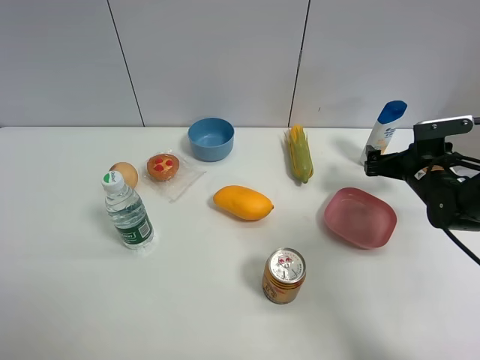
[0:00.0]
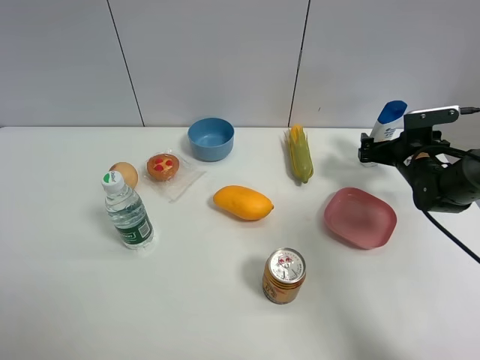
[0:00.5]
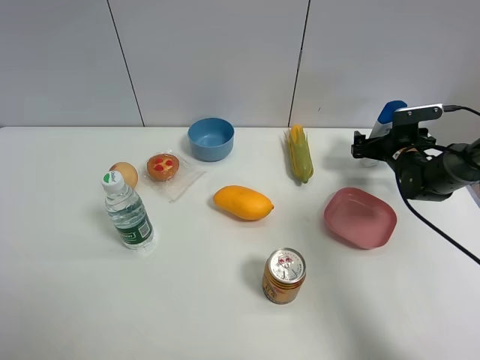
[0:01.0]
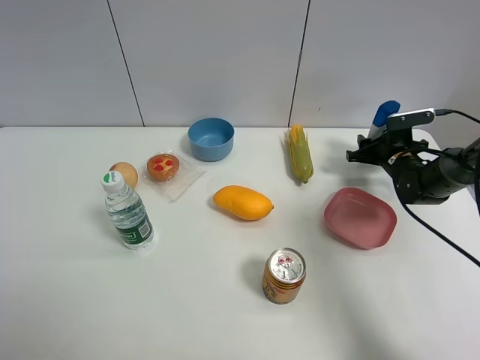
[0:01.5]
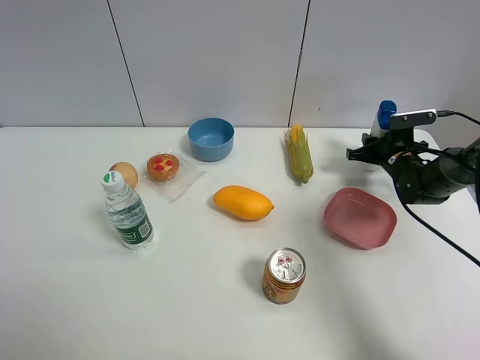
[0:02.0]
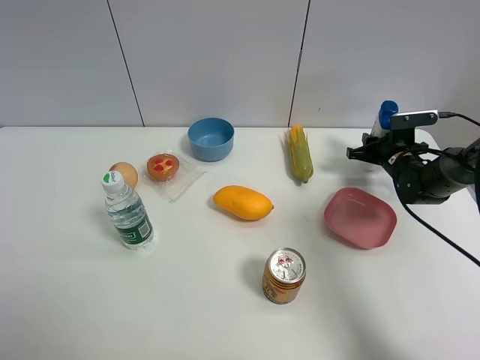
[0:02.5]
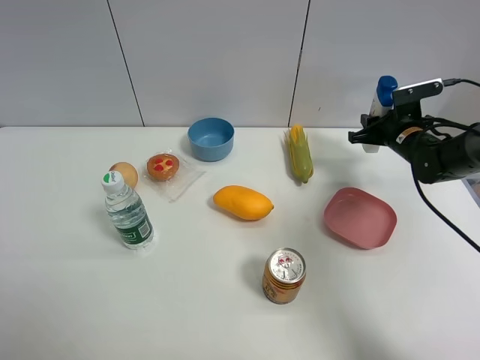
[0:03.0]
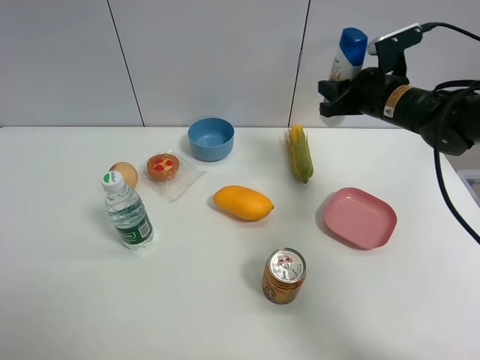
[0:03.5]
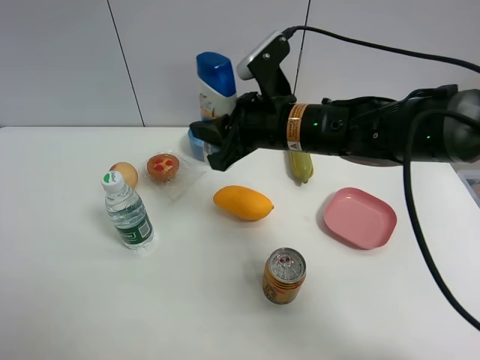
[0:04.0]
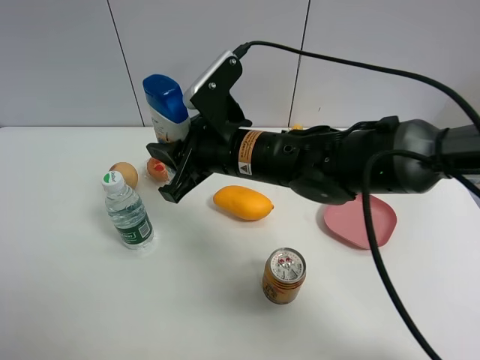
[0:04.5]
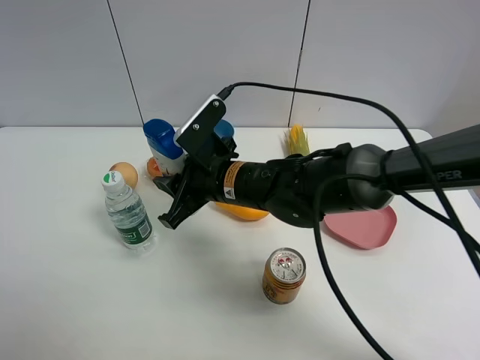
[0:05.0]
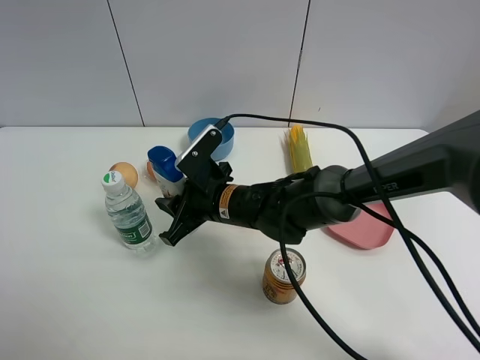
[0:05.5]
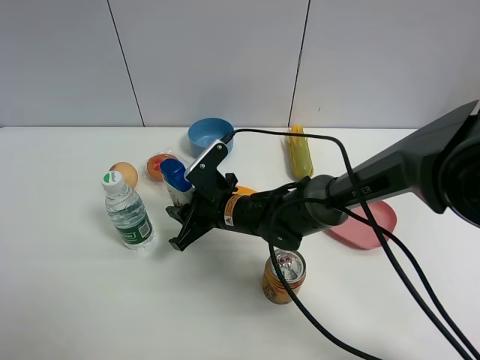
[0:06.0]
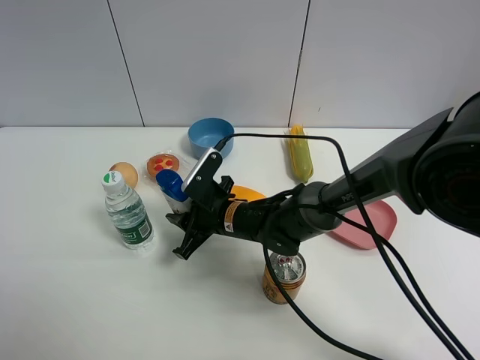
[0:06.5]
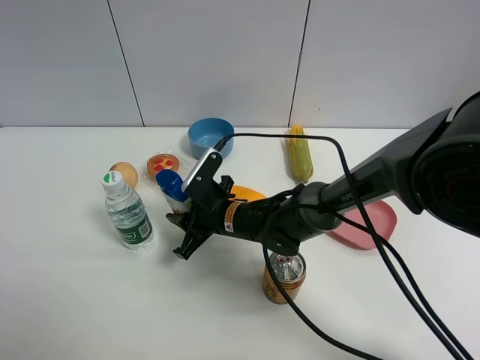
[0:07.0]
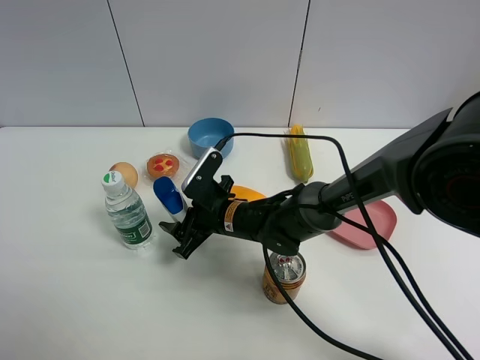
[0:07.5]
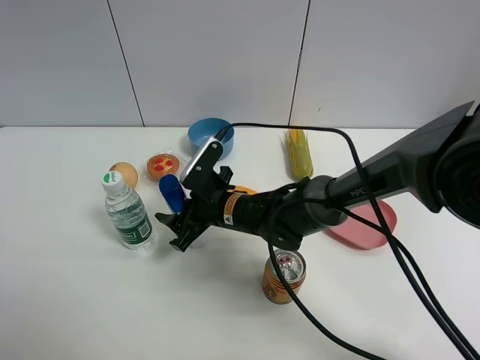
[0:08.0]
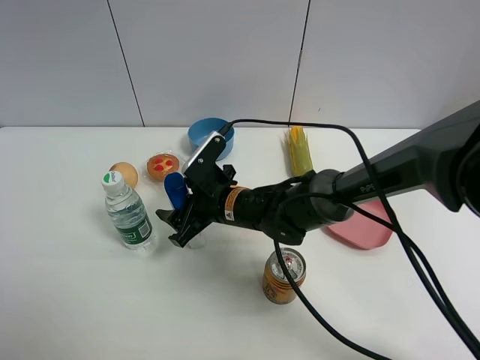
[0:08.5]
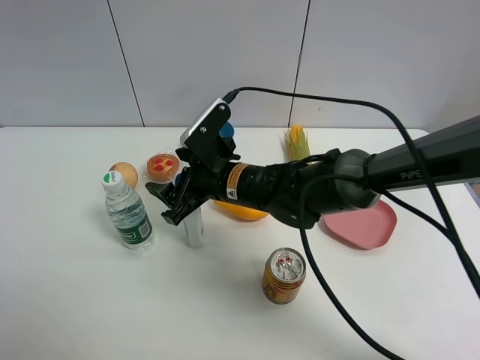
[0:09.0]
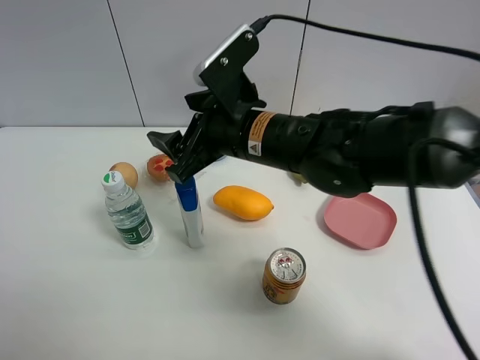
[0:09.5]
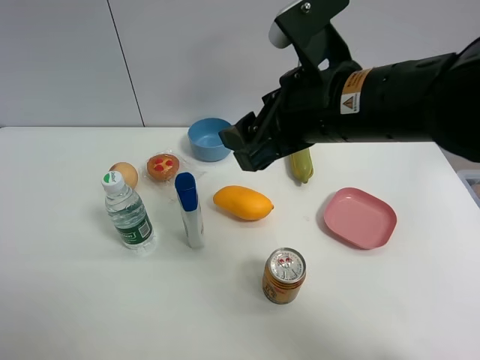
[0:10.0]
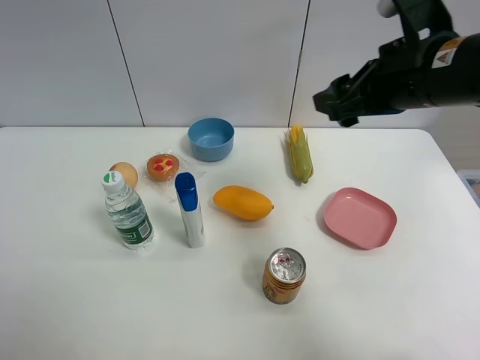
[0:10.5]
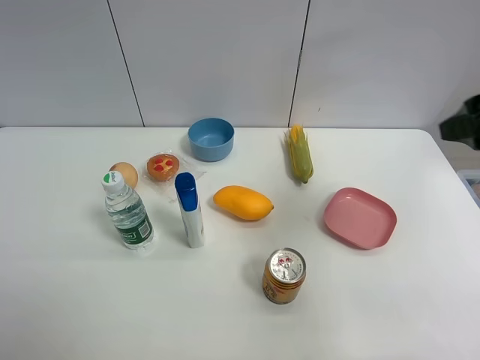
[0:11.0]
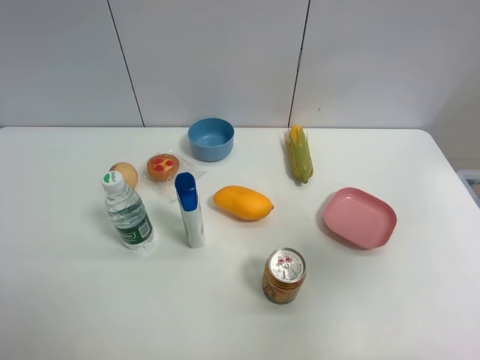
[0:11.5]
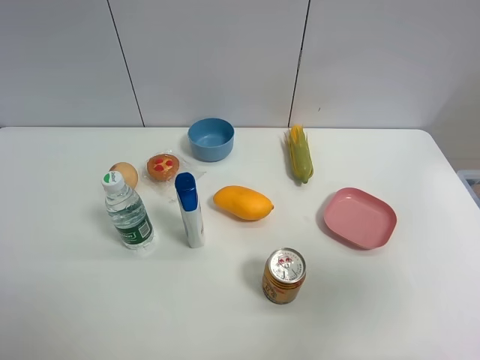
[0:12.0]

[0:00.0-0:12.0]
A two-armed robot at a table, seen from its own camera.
Task of the whole recording: the gripper move the object.
Step, 0:02.0 to 0:08.5: Place the shampoo on the table with the right gripper.
0:00.0 to 0:02.0: The right gripper heads forward, covering some 10 cm, and closes up.
0:02.0 to 0:04.0: The right gripper shifts approximately 35 cm to the left, upward and backward.
0:04.0 to 0:06.0: The right gripper moves downward and to the left, approximately 15 cm.
0:06.0 to 0:08.0: The right gripper opens up.
0:08.0 to 0:10.0: The right gripper travels upward and to the right by approximately 25 cm.
0:10.0 to 0:12.0: The right gripper heads to the right and backward, covering some 30 cm, and opens its fingers.

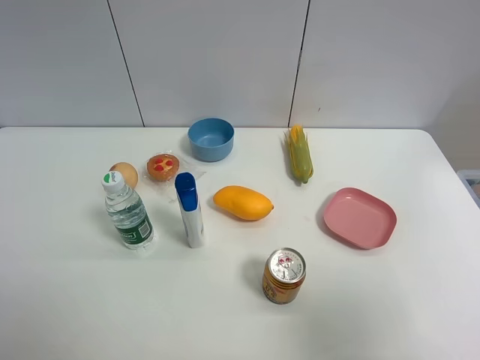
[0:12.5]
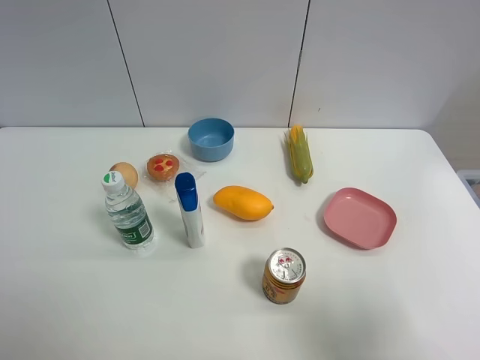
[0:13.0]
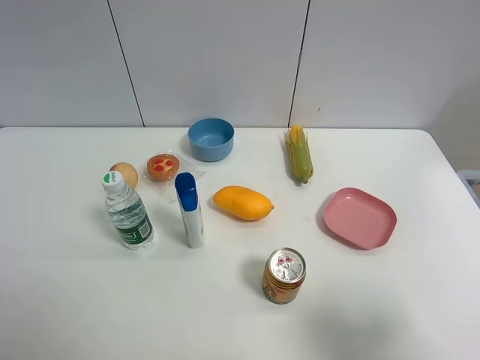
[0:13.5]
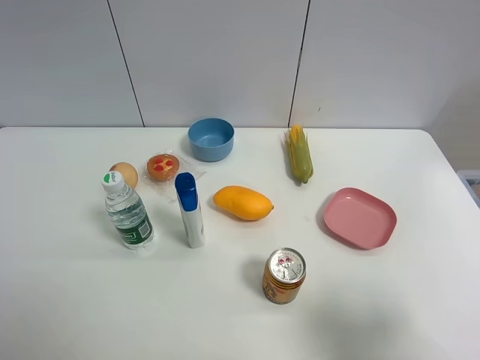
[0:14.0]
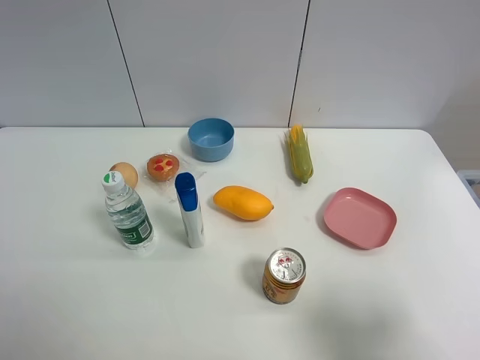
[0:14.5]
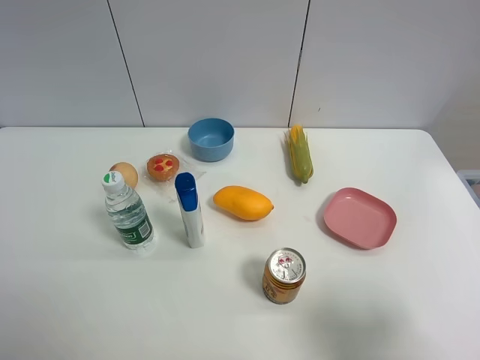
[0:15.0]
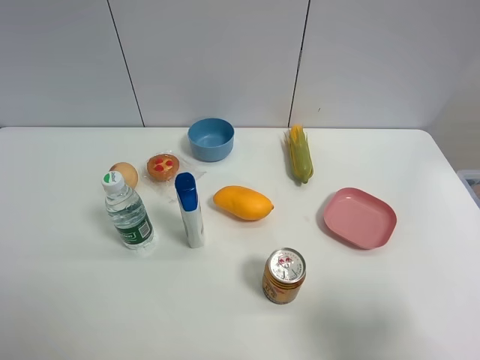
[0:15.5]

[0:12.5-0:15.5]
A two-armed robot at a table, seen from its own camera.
Task of the whole recording: the gripper move the object.
0:14.0 to 0:15.5: Neither gripper changes place.

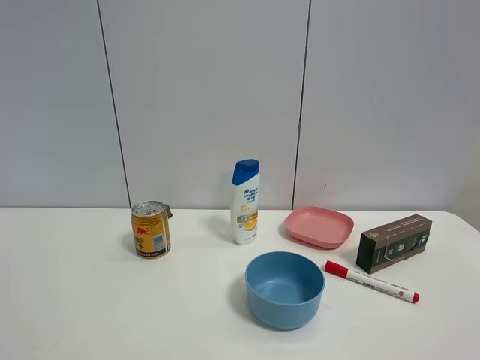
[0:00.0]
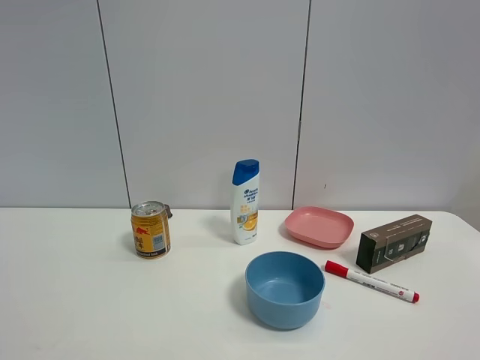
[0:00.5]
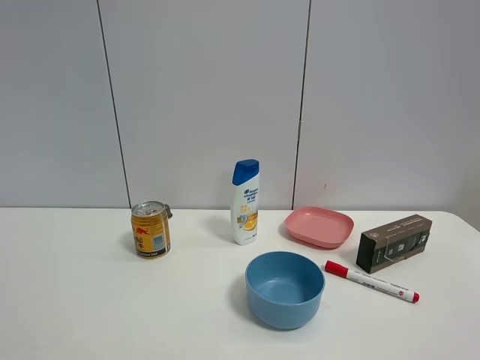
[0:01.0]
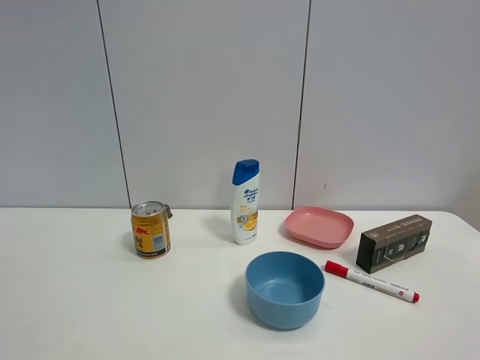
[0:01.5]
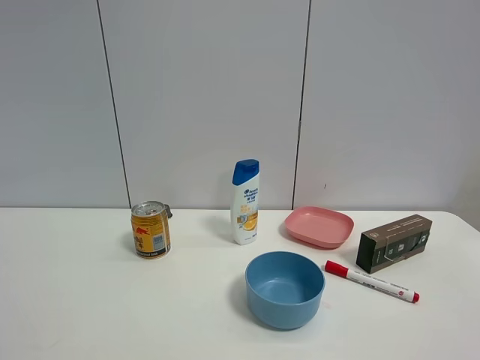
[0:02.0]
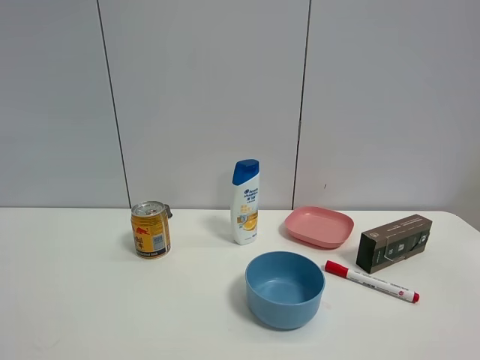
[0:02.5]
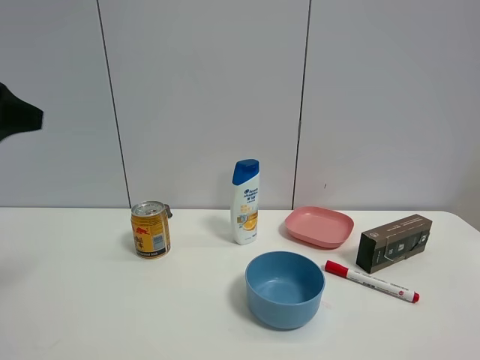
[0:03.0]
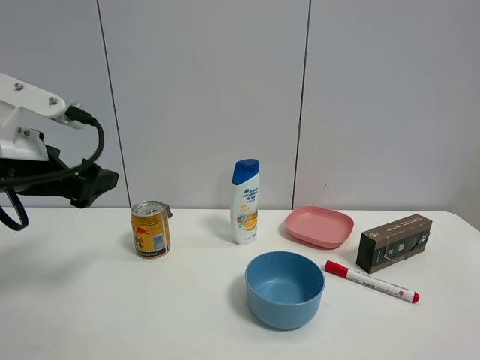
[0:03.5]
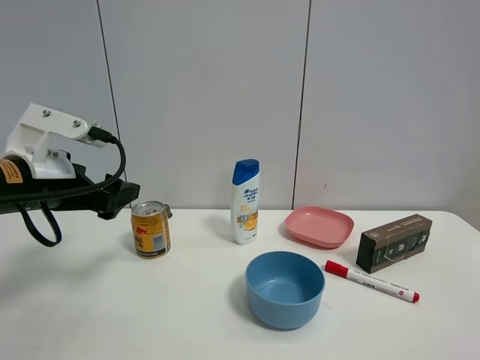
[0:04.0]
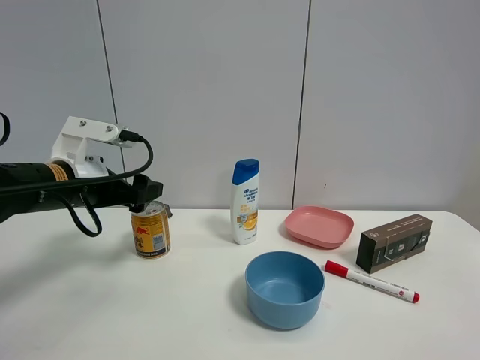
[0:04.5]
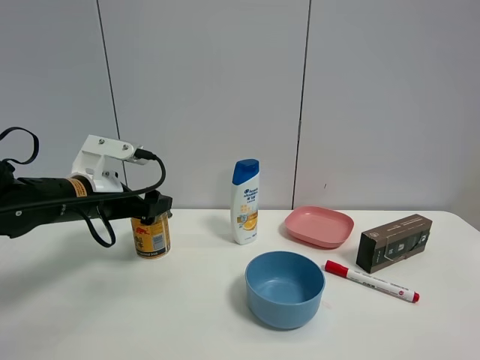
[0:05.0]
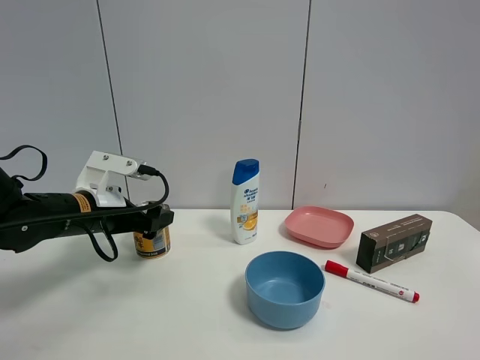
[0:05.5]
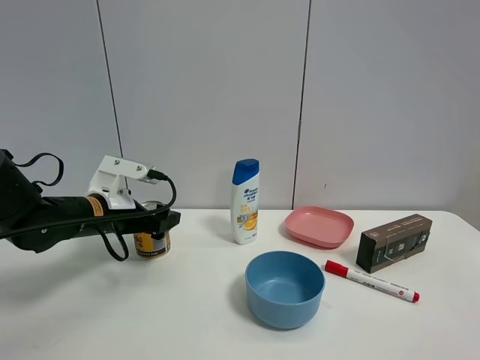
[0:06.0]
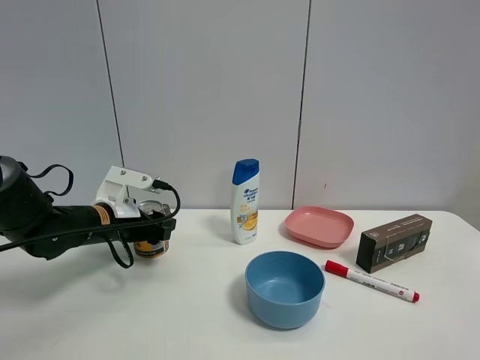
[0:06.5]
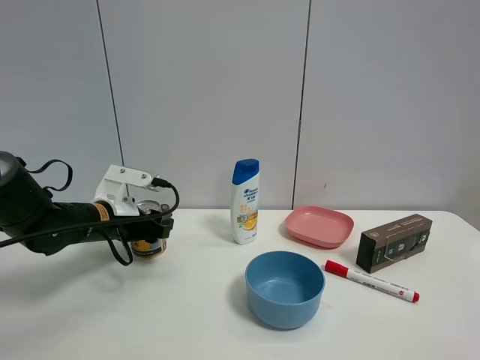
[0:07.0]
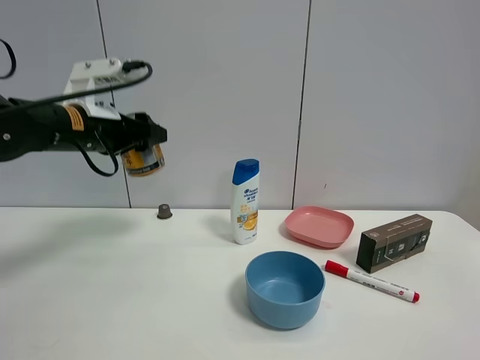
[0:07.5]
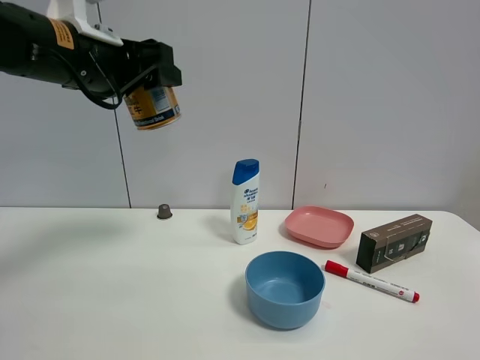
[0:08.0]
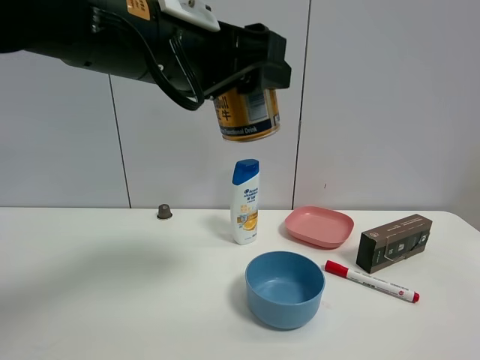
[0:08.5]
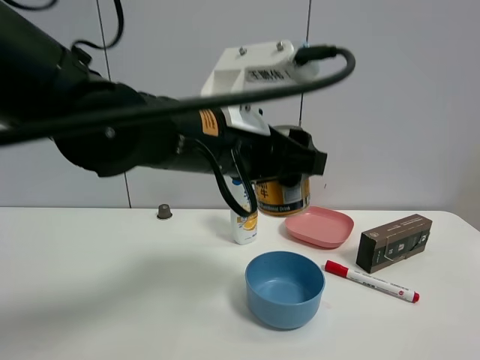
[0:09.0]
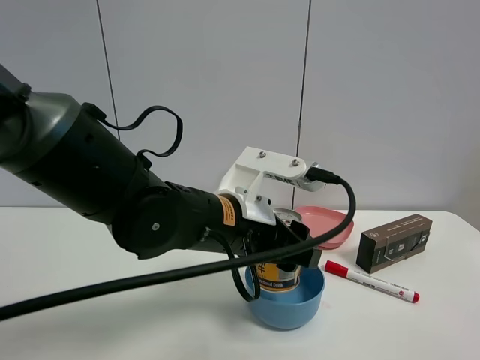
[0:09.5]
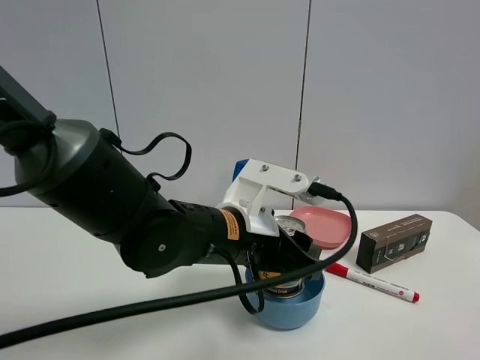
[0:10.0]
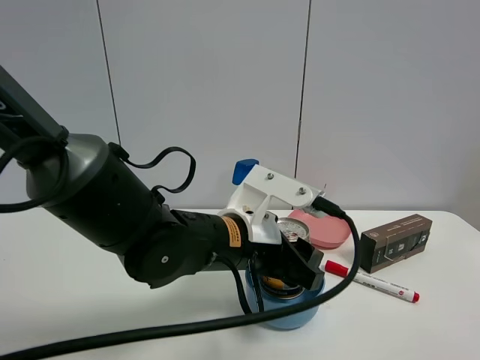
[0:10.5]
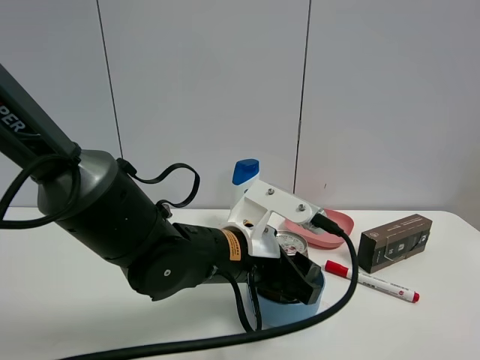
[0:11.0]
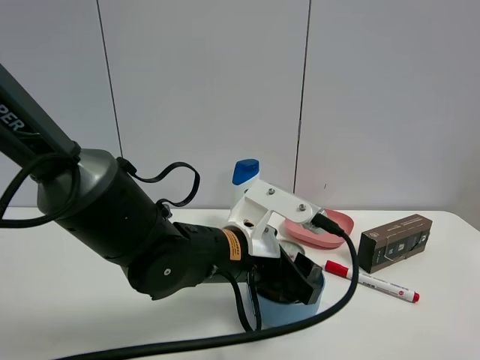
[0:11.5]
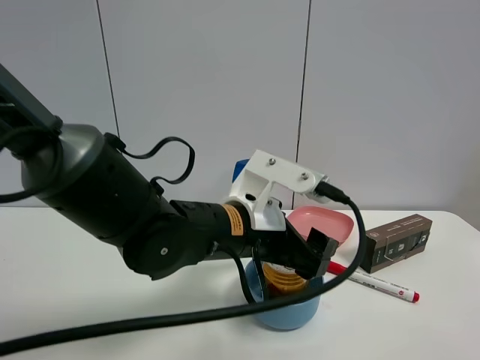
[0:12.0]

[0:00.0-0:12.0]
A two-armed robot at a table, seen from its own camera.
Task of the whole recording: the gripper move the object.
Step, 0:00.0 to 0:06.5: Grasp the red bull with the left gripper.
0:02.0 to 0:04.0: The left gripper shifts some 30 cm forward and downward.
0:04.0 to 0:06.0: The left gripper moves forward and downward, roughly 10 cm.
0:06.0 to 0:08.0: The left gripper is displaced upward by roughly 20 cm, and closes.
0:08.0 to 0:10.0: The left gripper goes approximately 25 cm downward and to the right.
0:10.0 to 0:12.0: The left gripper opens its fingers.
